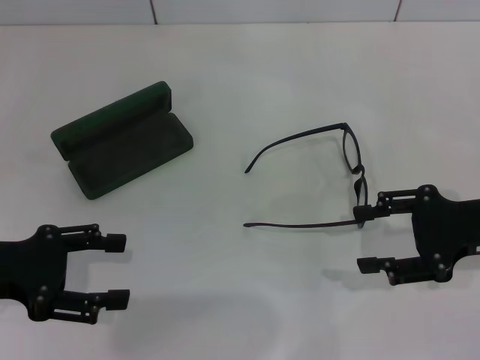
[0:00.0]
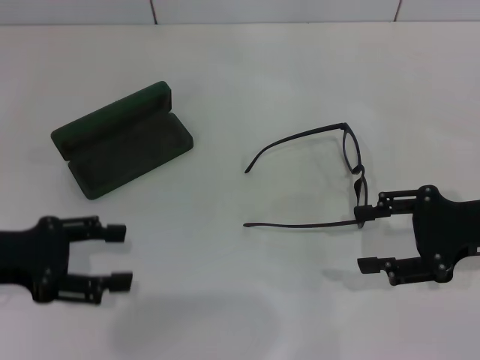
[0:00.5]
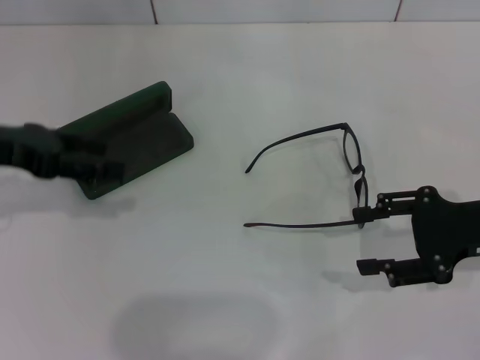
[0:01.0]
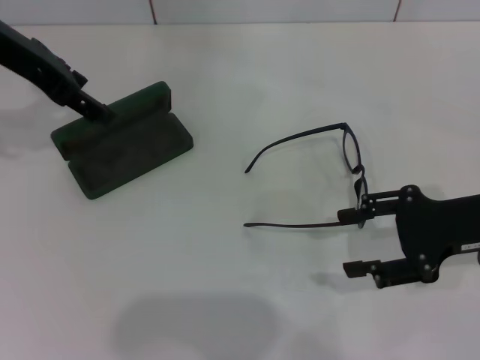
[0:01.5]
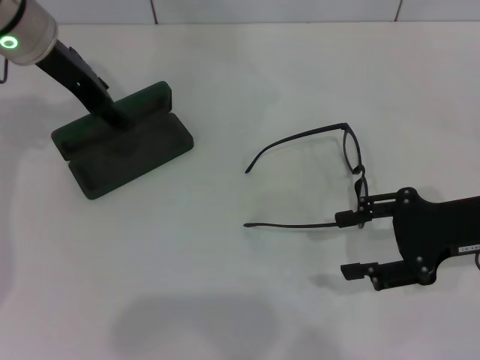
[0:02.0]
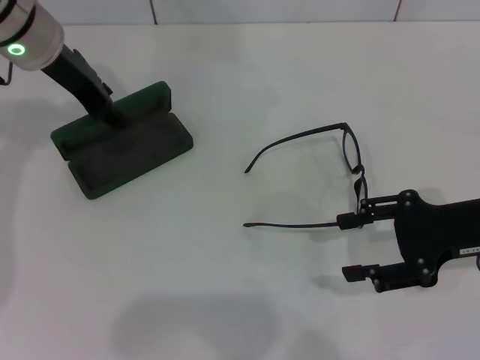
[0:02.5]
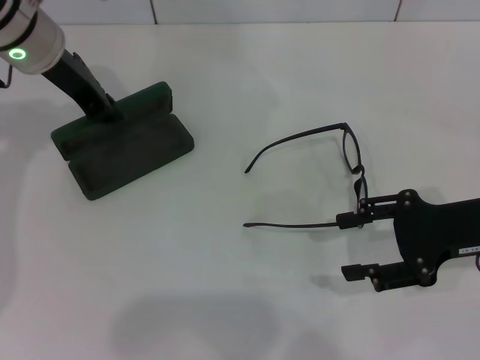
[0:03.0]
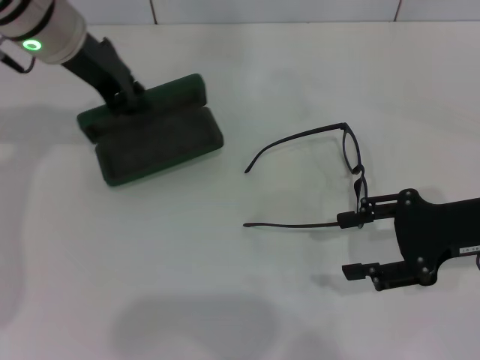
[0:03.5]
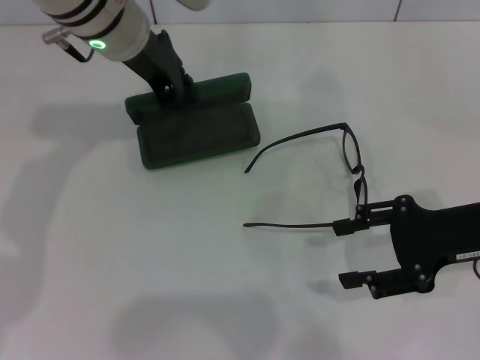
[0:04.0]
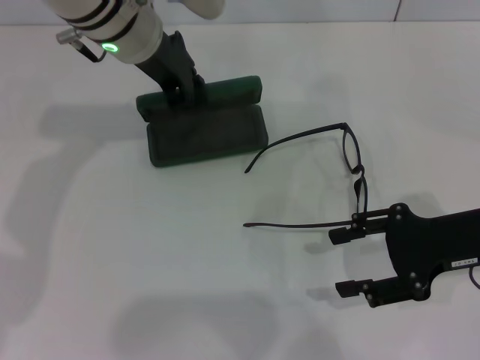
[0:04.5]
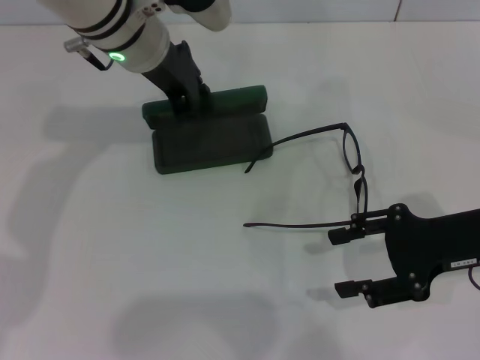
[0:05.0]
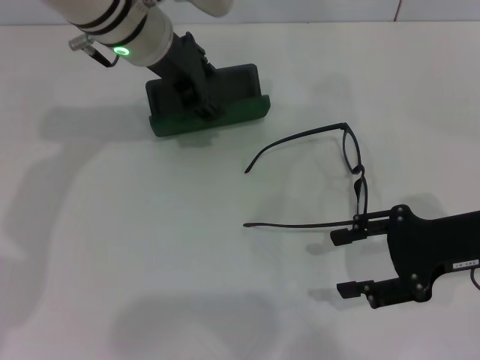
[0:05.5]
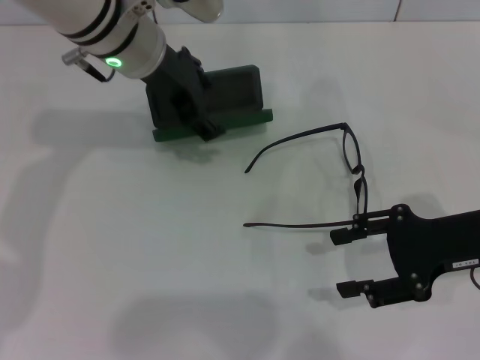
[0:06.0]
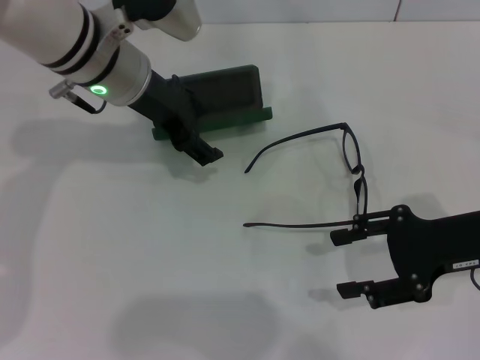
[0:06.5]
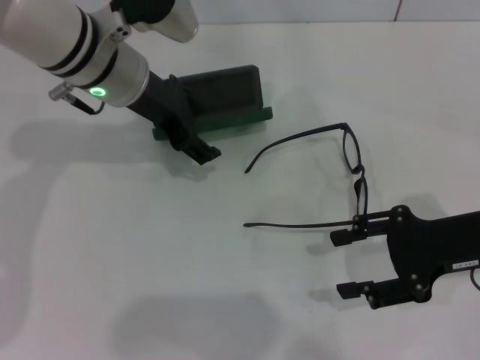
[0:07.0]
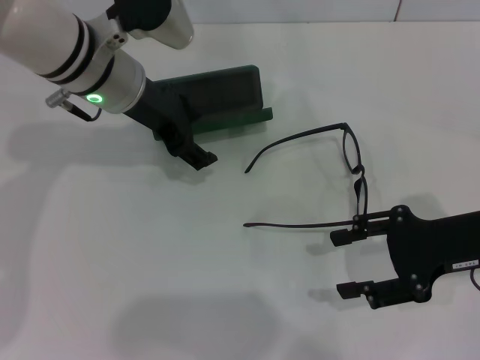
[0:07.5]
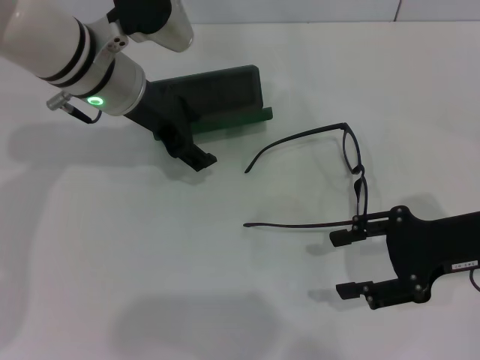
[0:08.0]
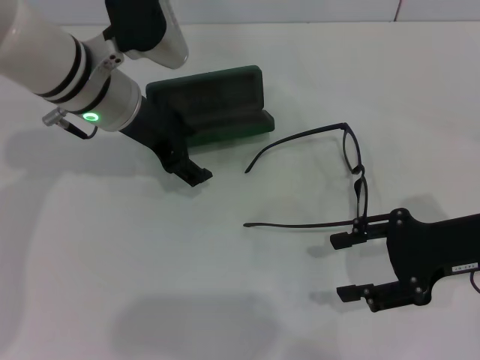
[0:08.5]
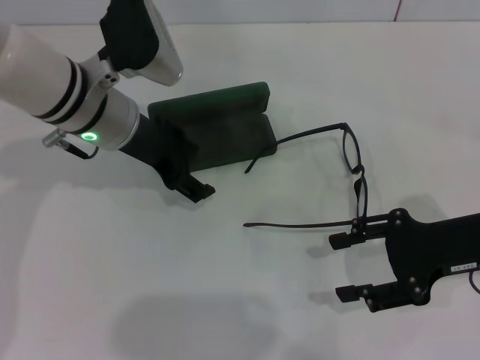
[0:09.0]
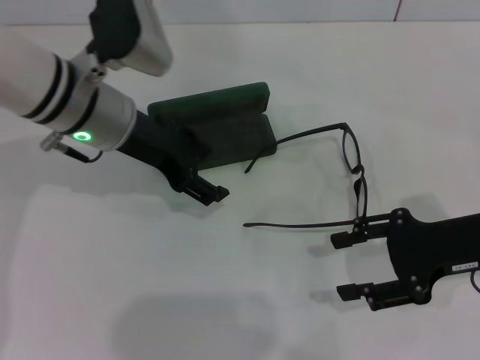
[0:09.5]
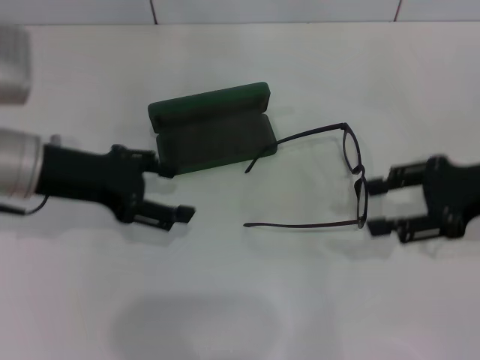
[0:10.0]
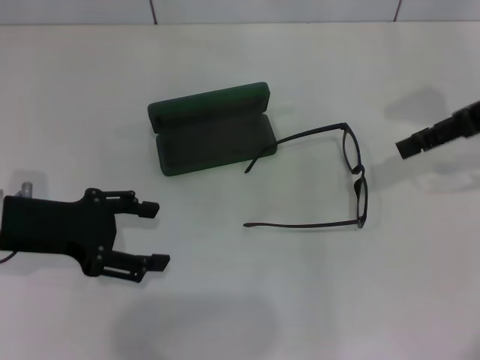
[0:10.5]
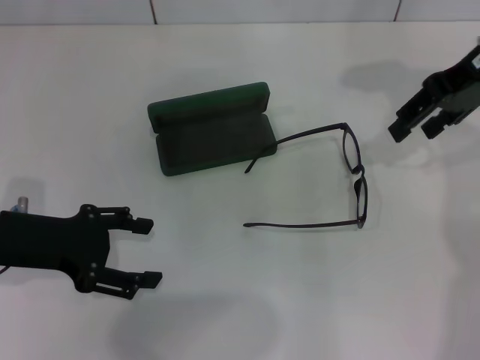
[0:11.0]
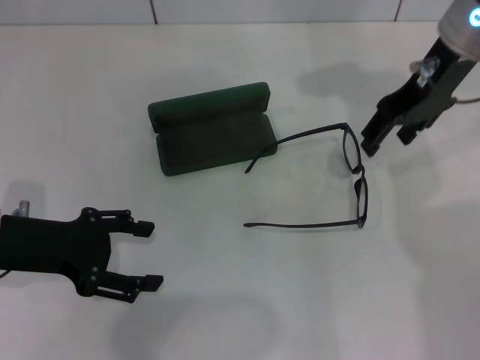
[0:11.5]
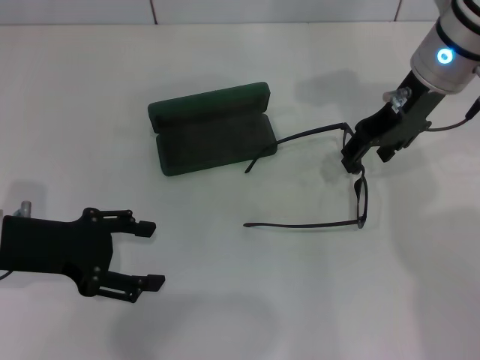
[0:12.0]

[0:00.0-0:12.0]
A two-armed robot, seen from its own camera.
Step, 0:00.0 to 0:02.5: Grab the glasses case with your left hand.
Step, 0:03.5 to 0:09.0: Place the glasses case in the center of the table with your left hand.
0:00.0 to 0:02.0: The left gripper is displaced forward, to the right and upward by some 25 cm.
0:02.0 to 0:04.0: The left gripper goes approximately 10 cm to the right, and closes.
0:04.0 to 0:06.0: The left gripper opens its fingers.
0:06.0 to 0:08.0: The grippers stay close to where they were, moving slightly.
0:08.0 to 0:10.0: The left gripper shifts some 15 cm to the left and backward. The right gripper moves approximately 5 cm.
0:10.0 to 0:12.0: The right gripper moves to the left, forward and upward, some 15 cm. Meanwhile the left gripper changes place by some 5 cm.

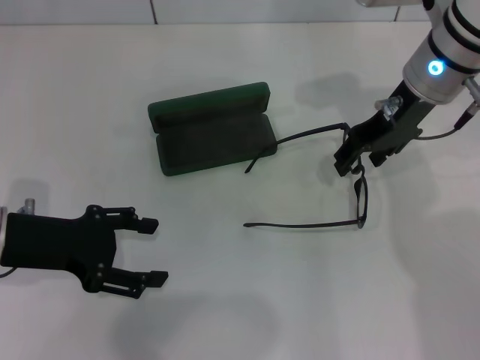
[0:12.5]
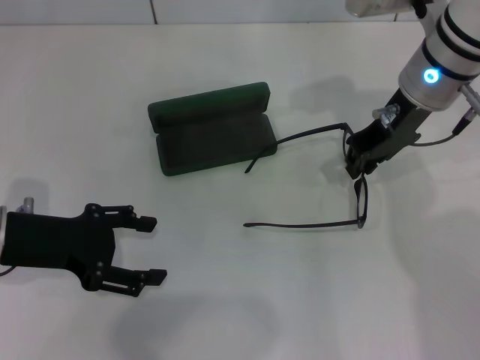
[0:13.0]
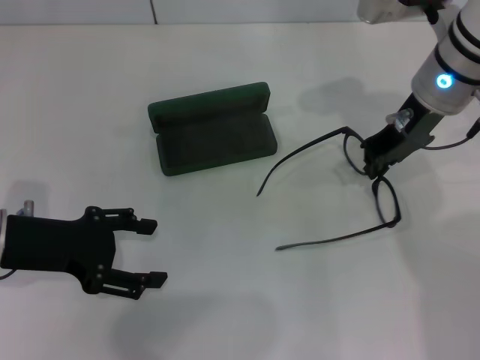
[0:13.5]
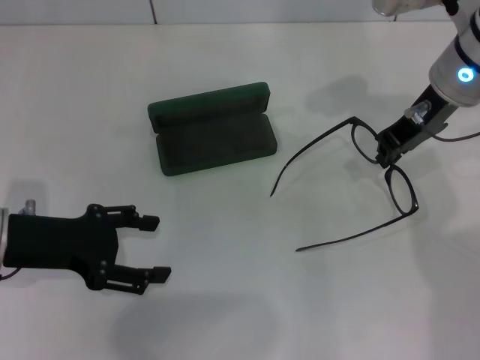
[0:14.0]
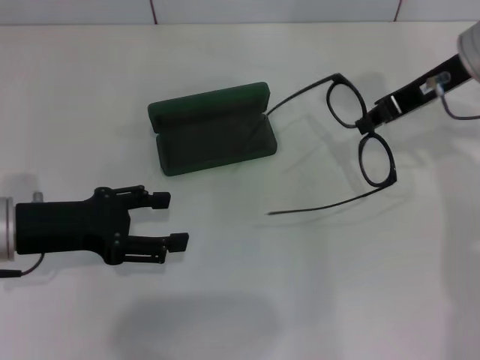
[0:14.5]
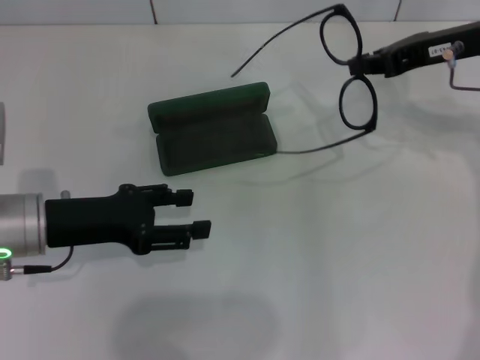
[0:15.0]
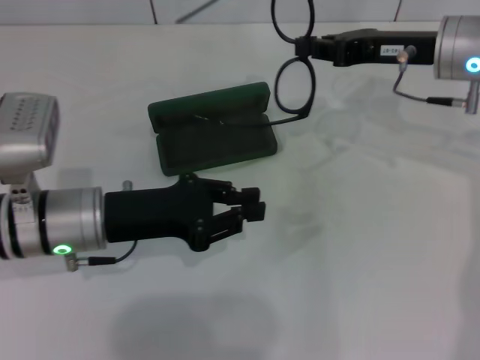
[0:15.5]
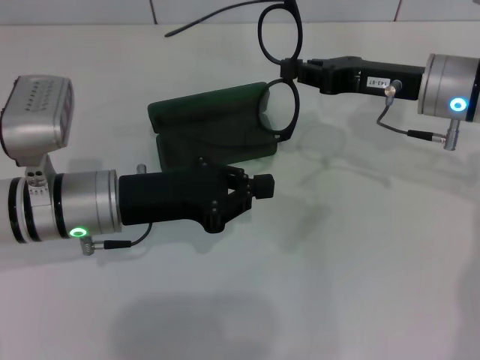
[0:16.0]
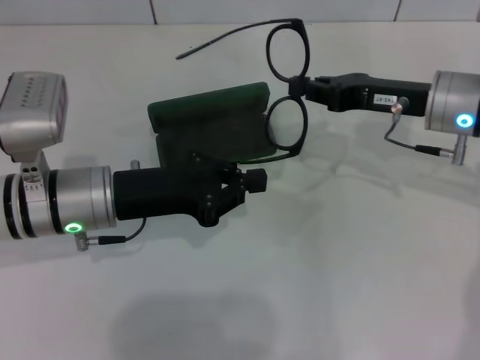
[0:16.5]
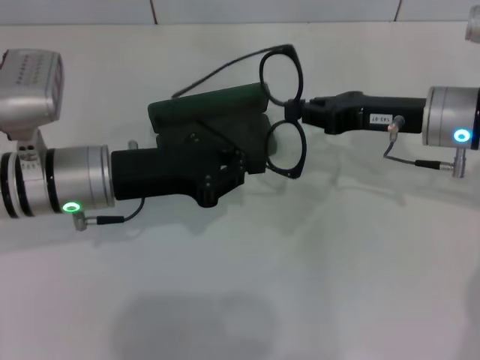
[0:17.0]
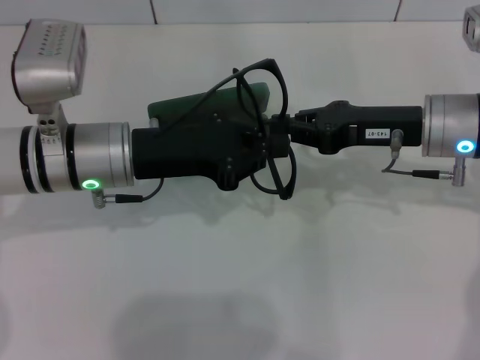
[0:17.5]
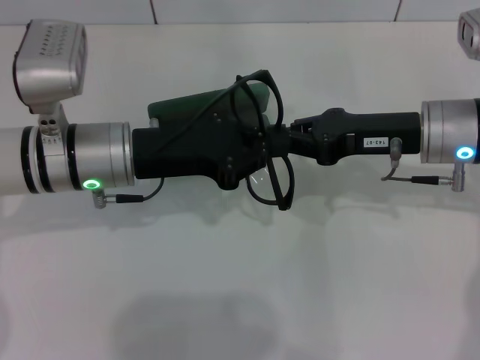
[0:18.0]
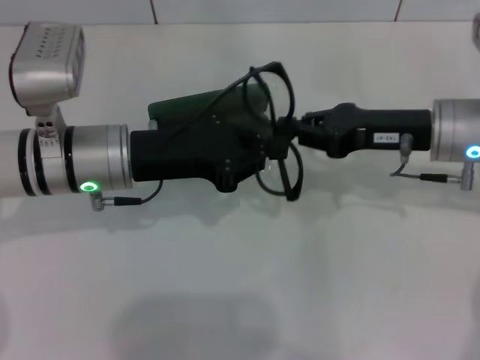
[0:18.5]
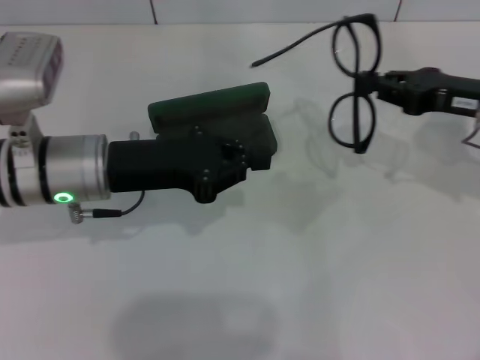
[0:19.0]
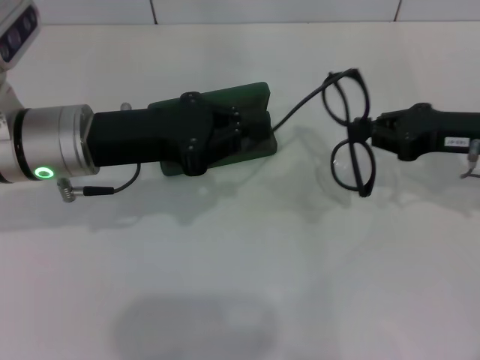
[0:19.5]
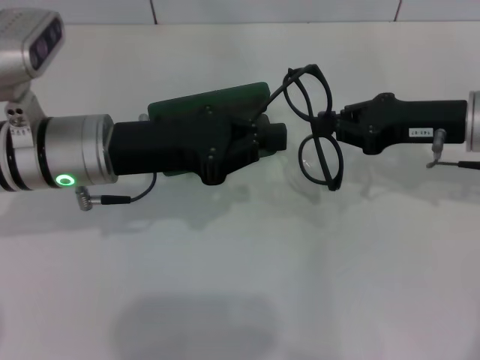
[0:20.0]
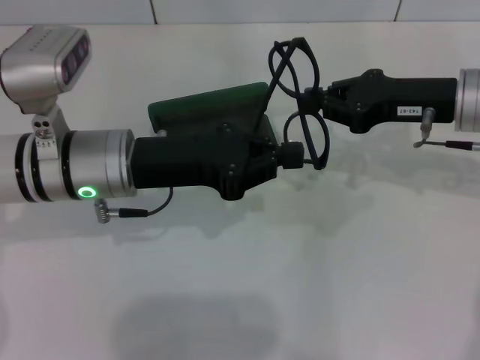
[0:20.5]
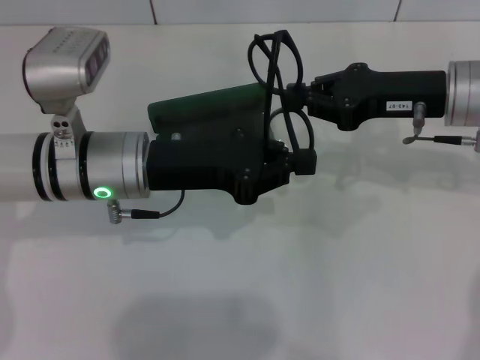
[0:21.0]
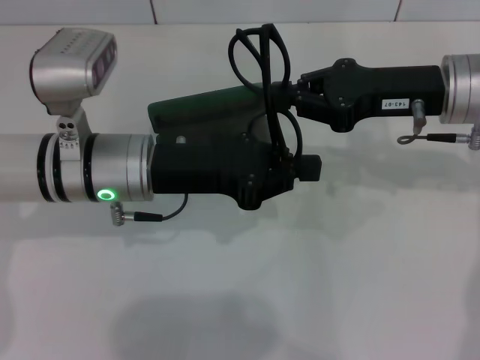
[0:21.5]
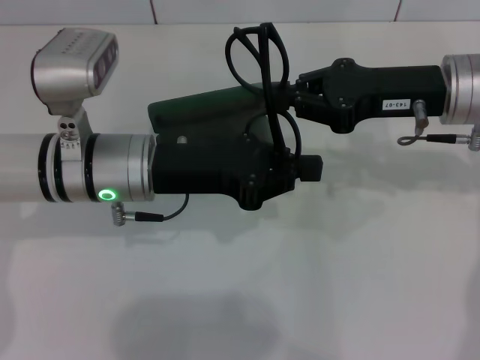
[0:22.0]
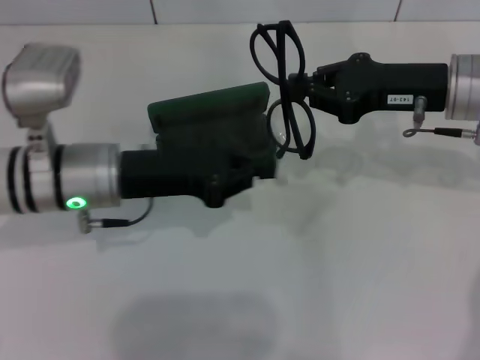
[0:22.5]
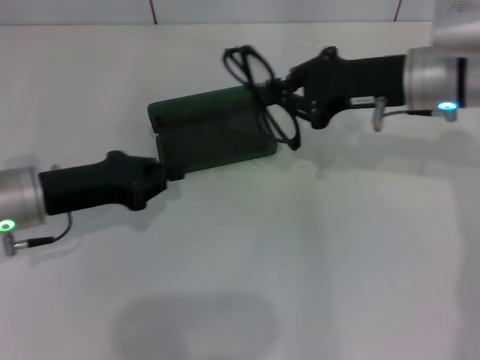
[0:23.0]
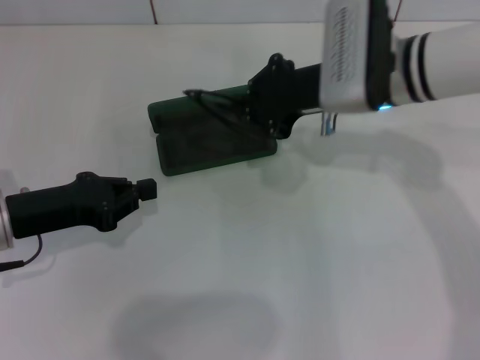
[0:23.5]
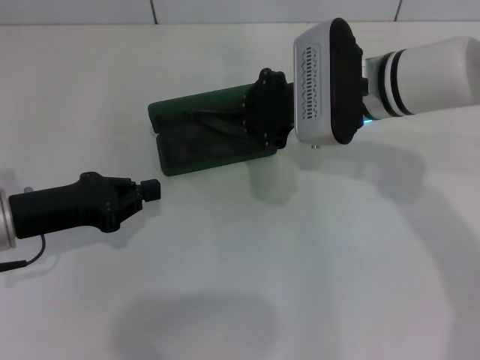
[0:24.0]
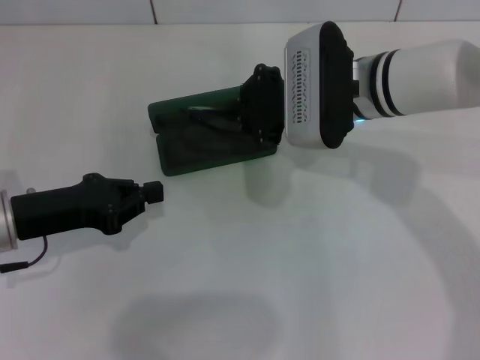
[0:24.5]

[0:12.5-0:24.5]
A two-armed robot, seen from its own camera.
Step, 0:13.5 to 0:22.0: Fold the frame with your left hand.
0:12.5 to 0:14.5: The right gripper shifts approximately 5 cm to the right, and closes its fingers.
0:14.5 to 0:16.5: The right gripper is displaced downward by approximately 10 cm; the left gripper goes roughly 10 cm to the right, and closes up.
0:20.5 to 0:22.5: There are only small adjustments of the grippers.
0:22.5 to 0:24.5: The two grippers go roughly 10 cm to the left.

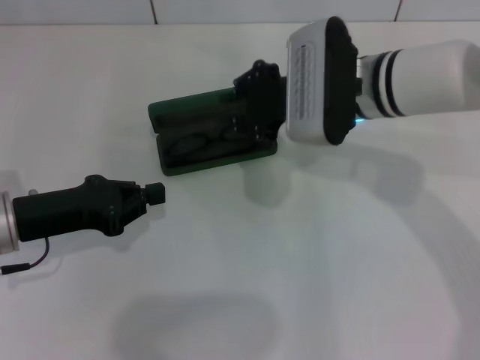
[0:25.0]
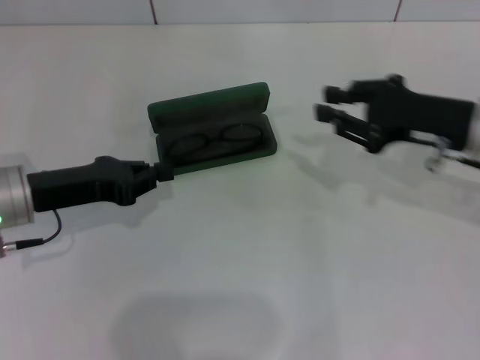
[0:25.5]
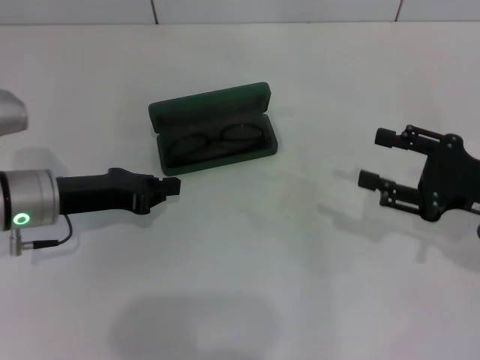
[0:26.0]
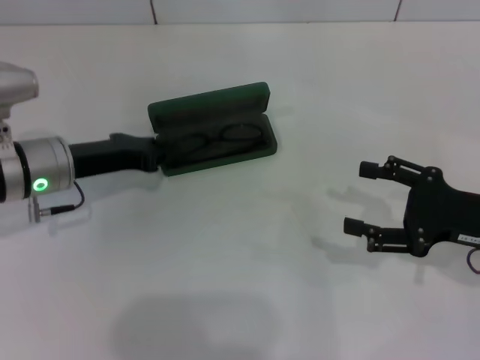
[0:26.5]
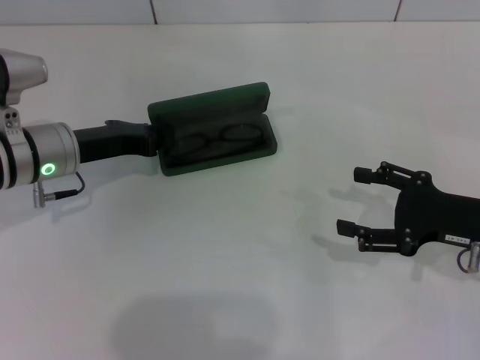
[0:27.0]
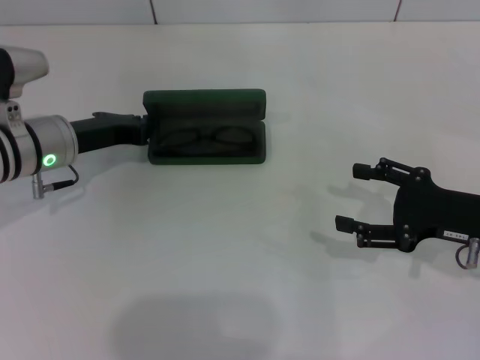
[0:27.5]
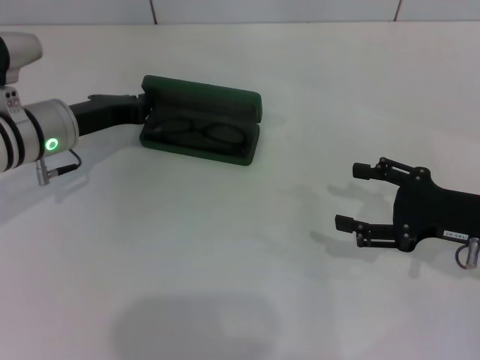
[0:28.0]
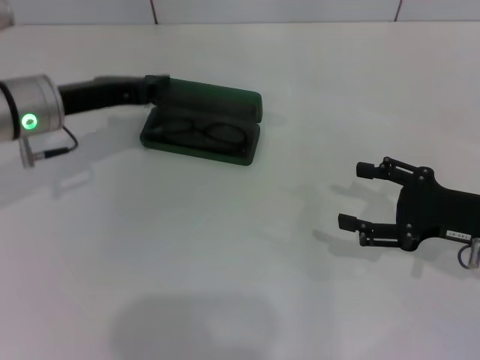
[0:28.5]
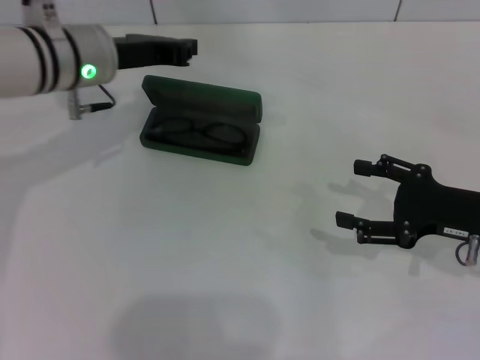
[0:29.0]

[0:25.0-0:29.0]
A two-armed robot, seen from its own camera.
0:25.0 to 0:27.0: The left gripper travels forward by approximately 10 cm, while the right gripper is displaced to the right, backward and downward by about 25 cm, and opens.
0:27.0 to 0:29.0: The left gripper travels upward and to the right by approximately 10 cm.
